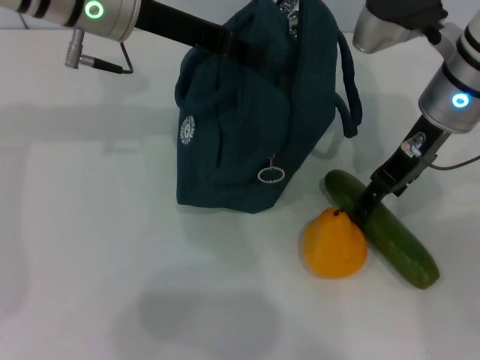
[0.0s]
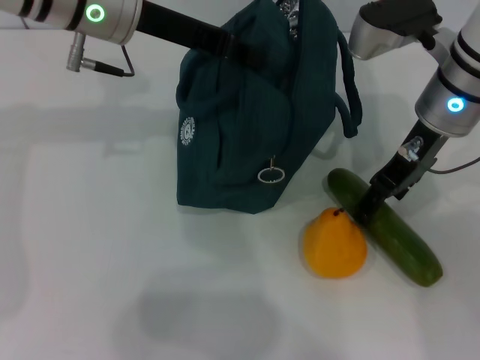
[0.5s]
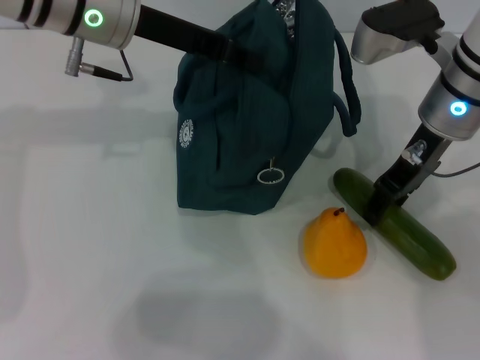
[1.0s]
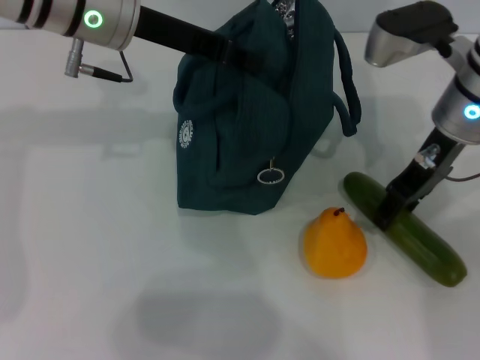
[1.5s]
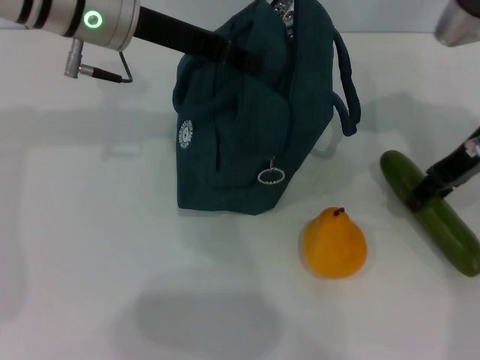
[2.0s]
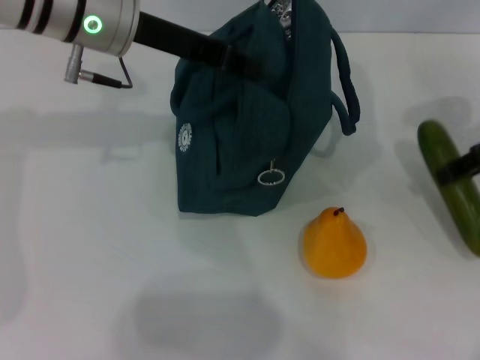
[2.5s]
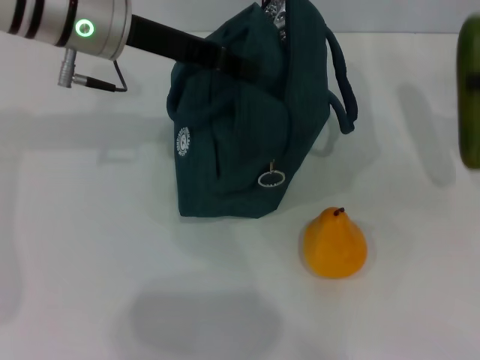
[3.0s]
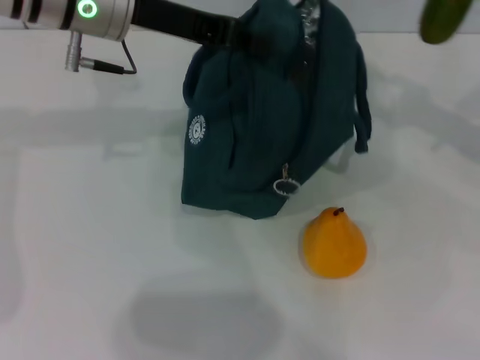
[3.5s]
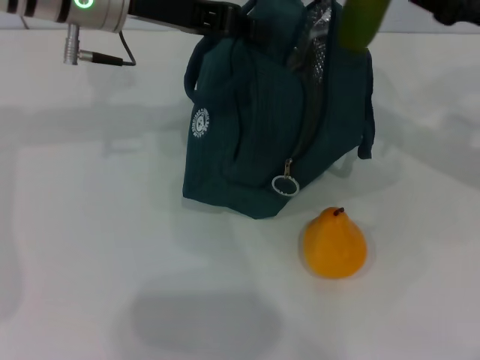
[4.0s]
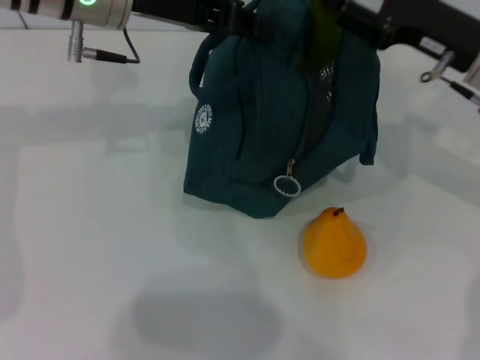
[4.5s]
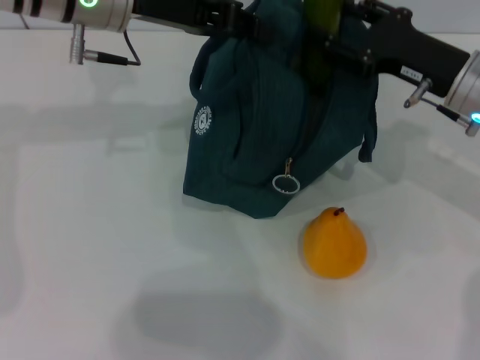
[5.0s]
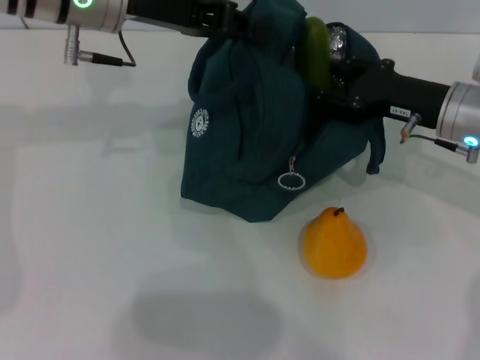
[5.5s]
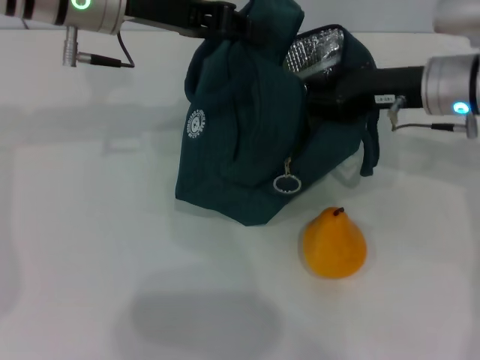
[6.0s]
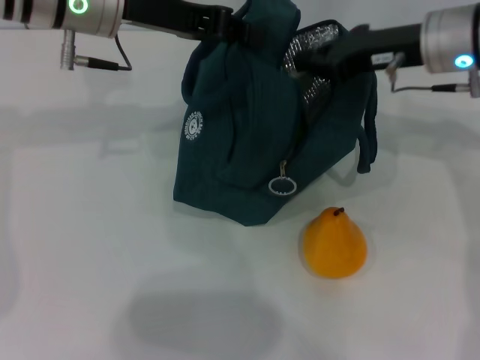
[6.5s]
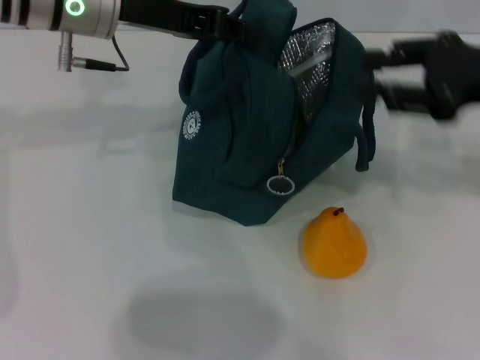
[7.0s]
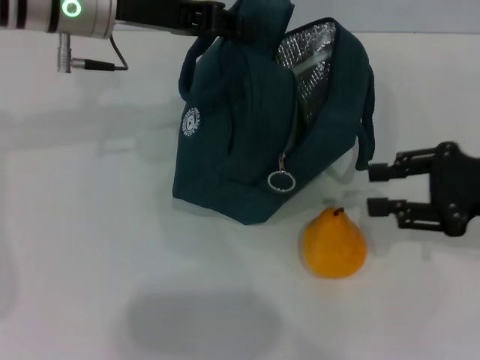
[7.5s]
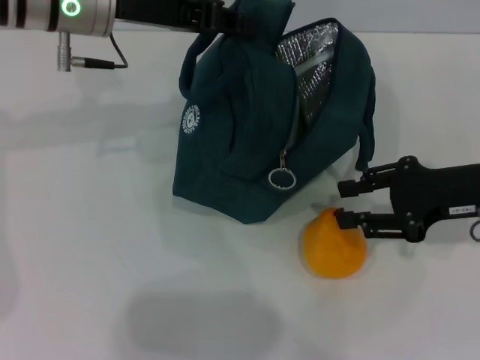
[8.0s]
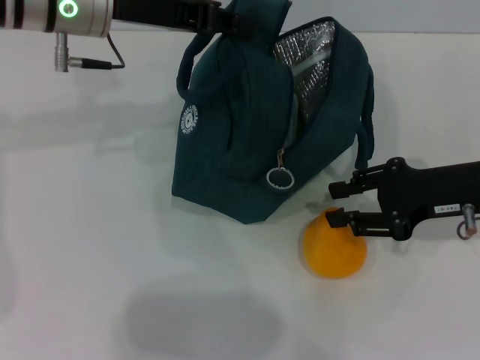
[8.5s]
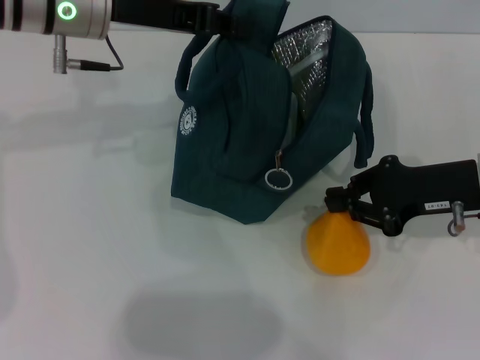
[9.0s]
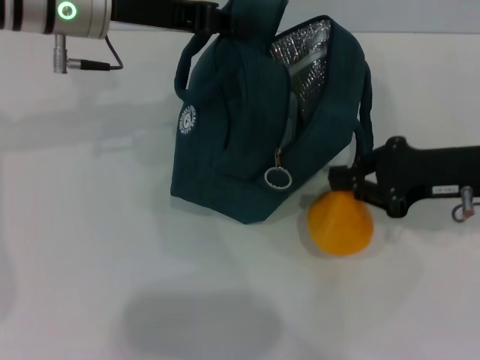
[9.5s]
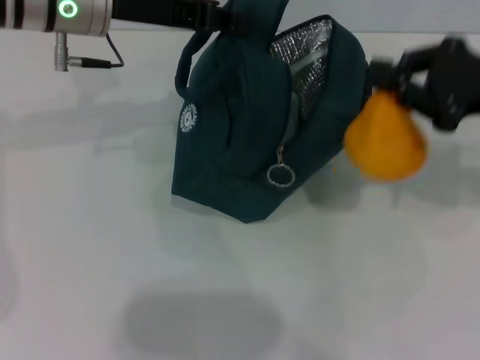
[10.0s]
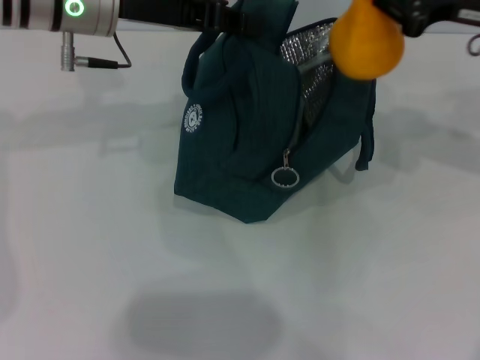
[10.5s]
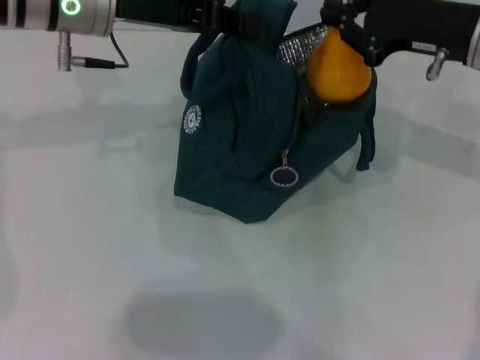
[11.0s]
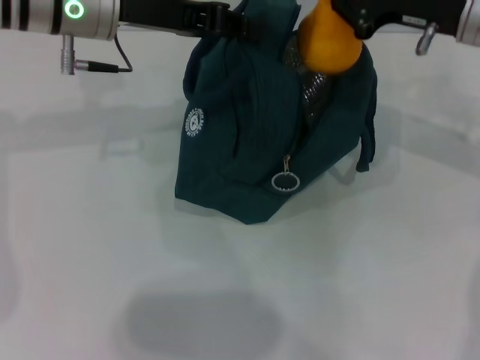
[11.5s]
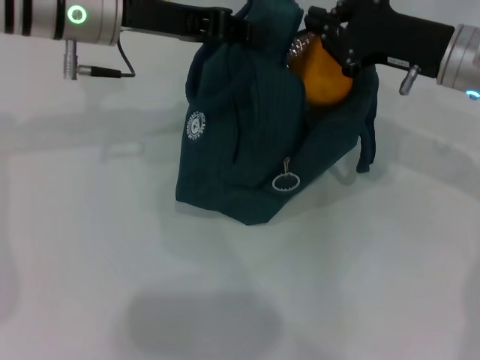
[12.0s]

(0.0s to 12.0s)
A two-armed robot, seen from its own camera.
Step, 1.5s - 6.0s: Put the cucumber into the lunch bag with your right hand.
Step, 7.0s - 9.0s: Grab the pear with your right hand.
0.0s - 2.0s: The right gripper shifts roughly 5 cm to the right.
2.0s - 4.0s: The right gripper travels to the right and back again, approximately 10 cm each way.
4.0s - 6.0s: The right gripper is displaced to the left by about 10 cm.
6.0s - 8.0s: The right gripper goes roughly 10 cm backward and to the right, and closes, then reopens.
8.0s - 10.0s: The right gripper moves upward, approximately 5 cm, and closes.
10.0s - 12.0s: The right gripper heads to the left and forward, covering roughly 10 cm.

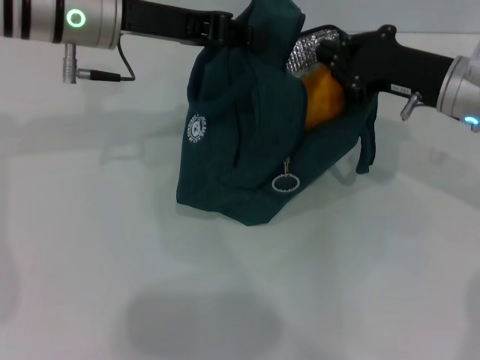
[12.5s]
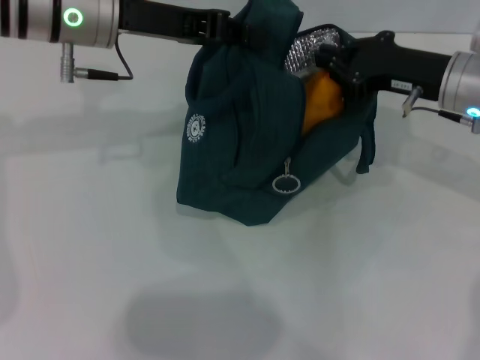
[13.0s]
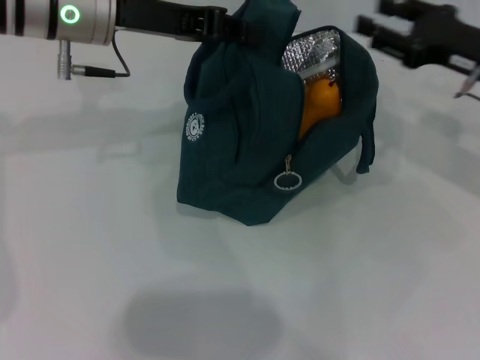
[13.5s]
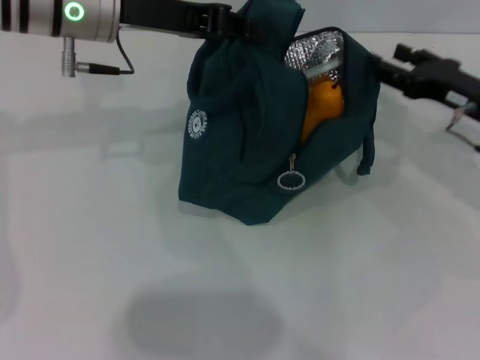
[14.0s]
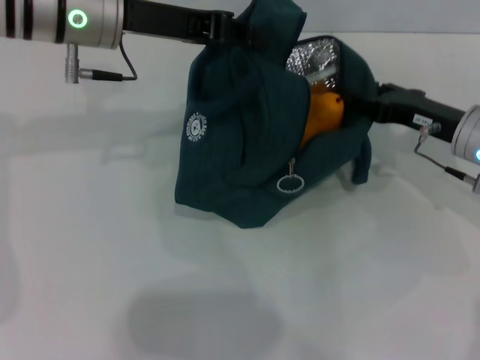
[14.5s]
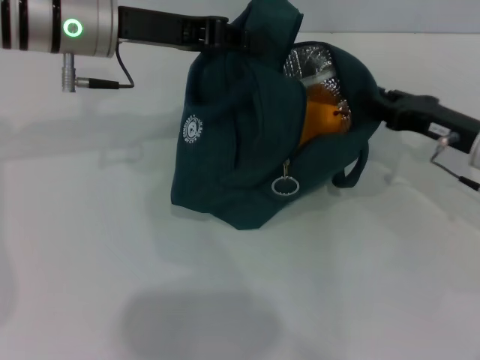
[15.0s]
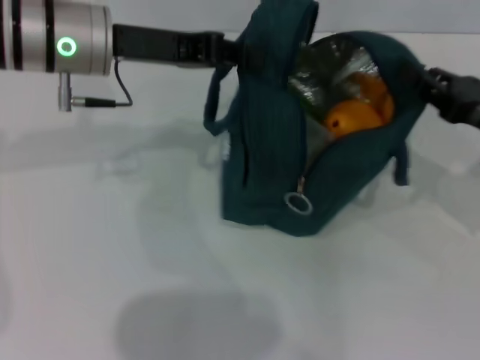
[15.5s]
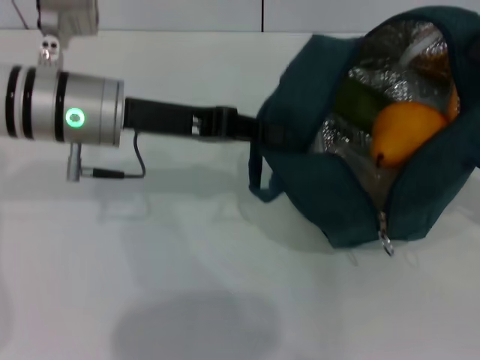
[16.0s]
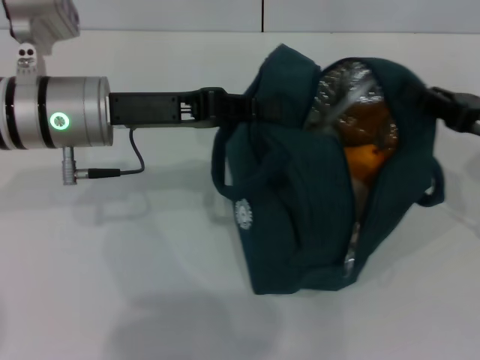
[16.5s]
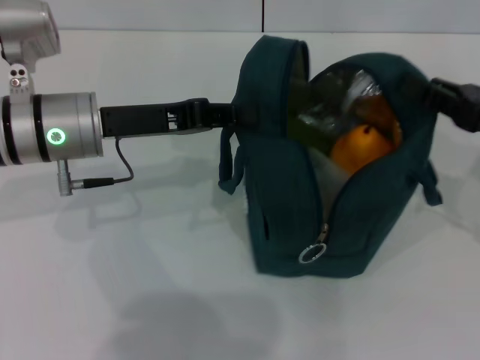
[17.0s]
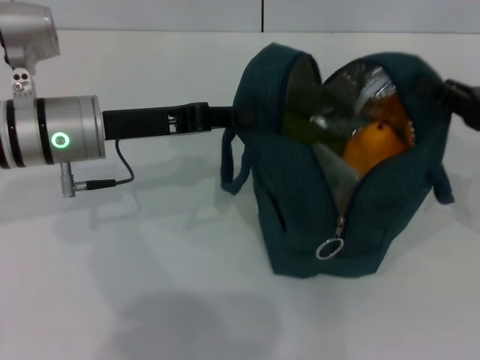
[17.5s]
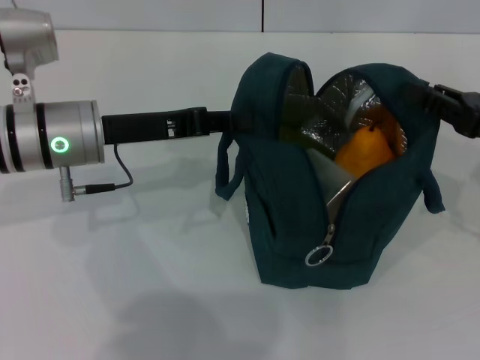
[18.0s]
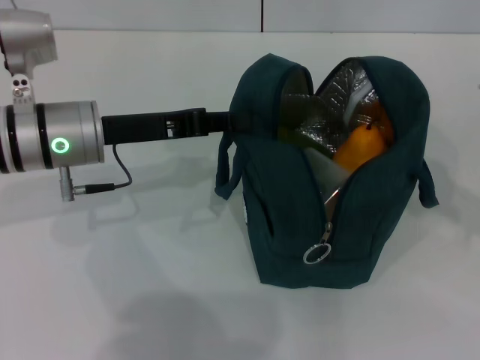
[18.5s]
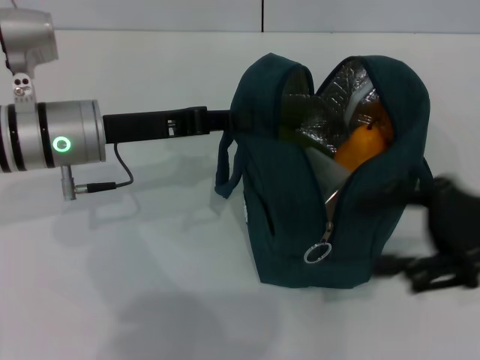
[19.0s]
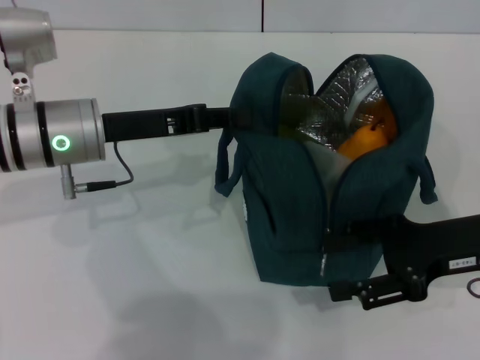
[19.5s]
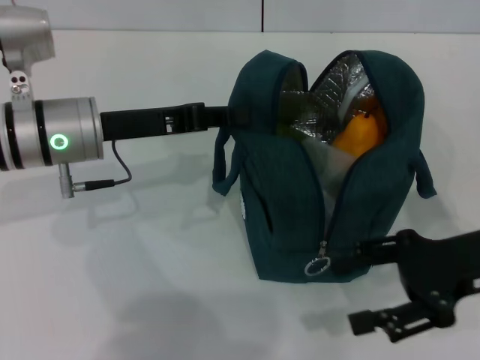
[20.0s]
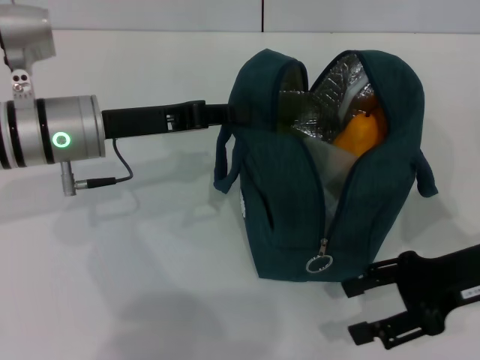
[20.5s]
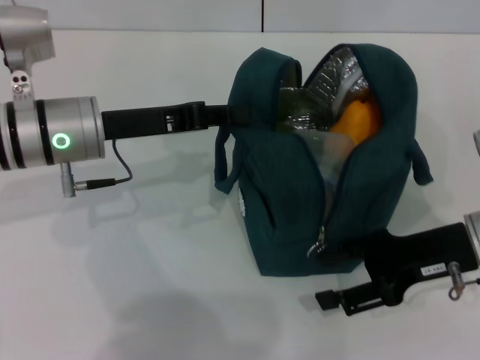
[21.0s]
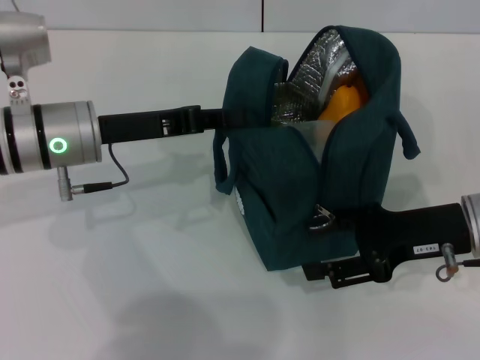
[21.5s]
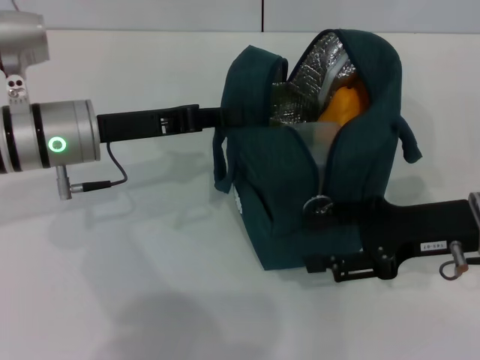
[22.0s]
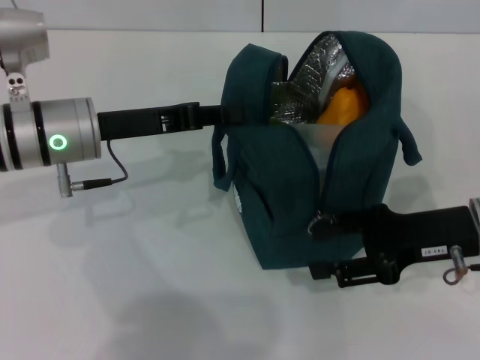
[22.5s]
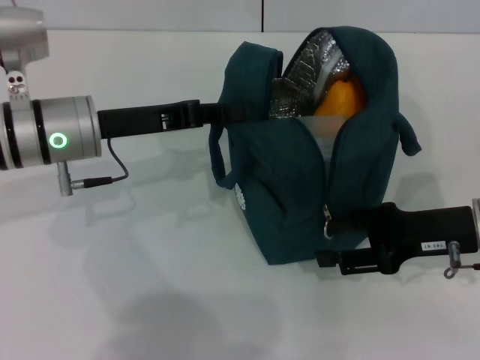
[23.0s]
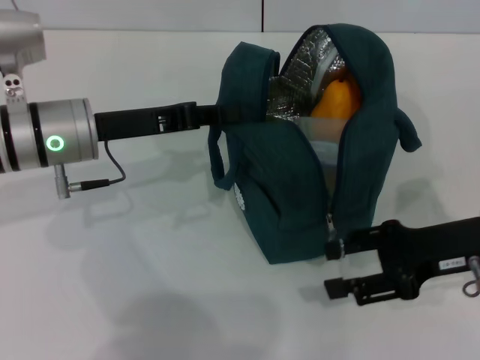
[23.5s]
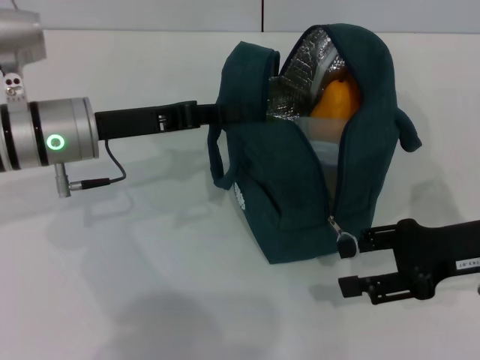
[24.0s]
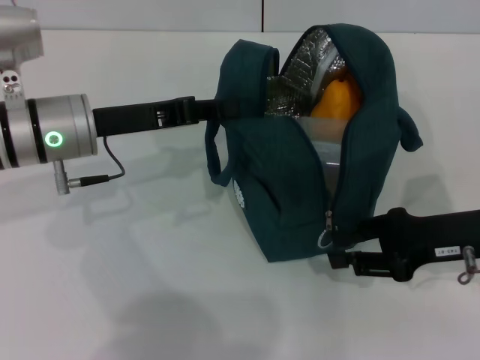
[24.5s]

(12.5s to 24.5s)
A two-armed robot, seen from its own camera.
Step, 13.5s - 18.0s: Hold the lunch bag with your right hand.
12.5s - 14.5s: The right gripper shifts by roughly 5 cm, and opens up.
14.5s - 16.5s: The right gripper shifts roughly 5 cm to the right, and closes up. Meanwhile the left gripper moves backward and downward, approximately 10 cm.
16.5s - 18.5s: The right gripper travels backward by about 5 cm, and opens up.
18.5s - 20.5s: The right gripper goes roughly 10 cm to the left.
22.5s - 24.5s: The grippers make only small movements.

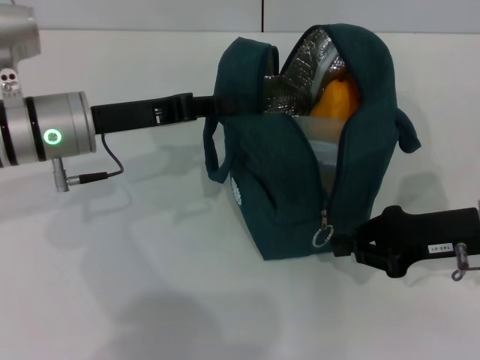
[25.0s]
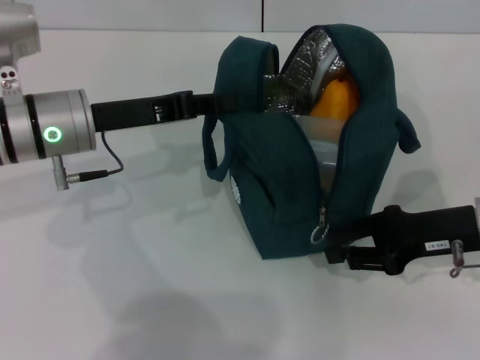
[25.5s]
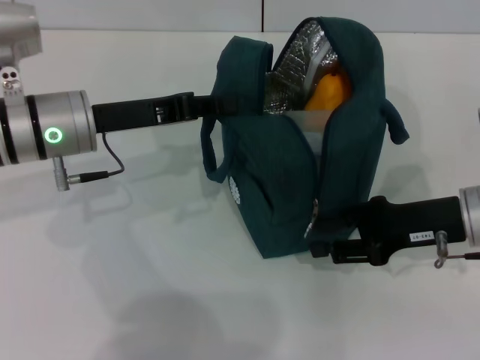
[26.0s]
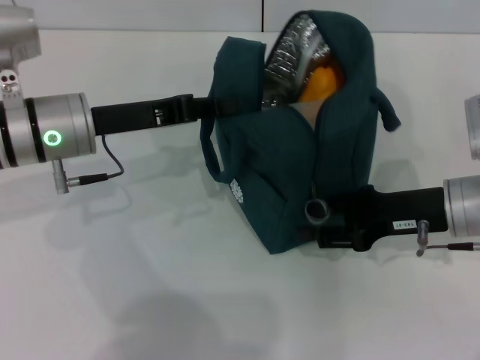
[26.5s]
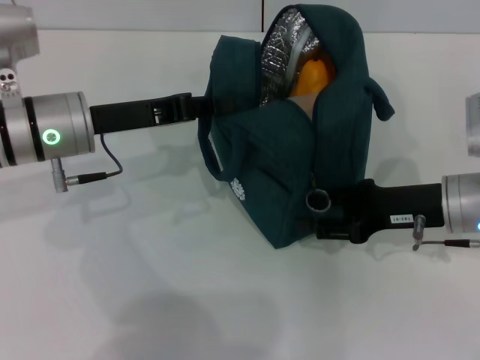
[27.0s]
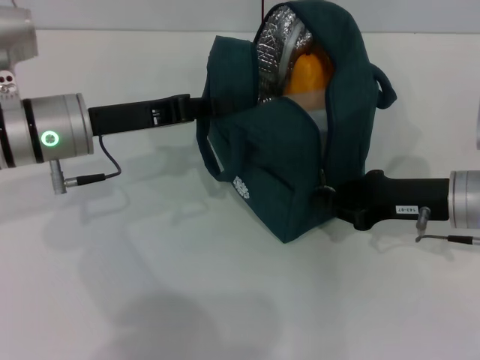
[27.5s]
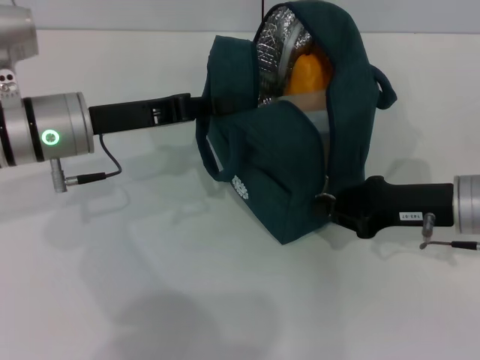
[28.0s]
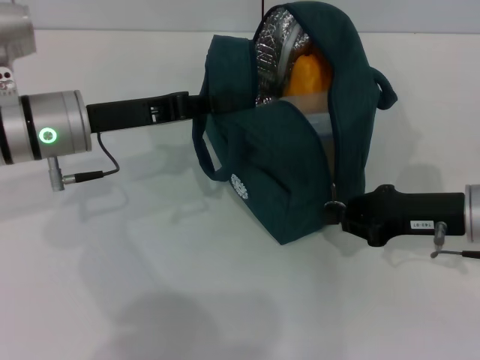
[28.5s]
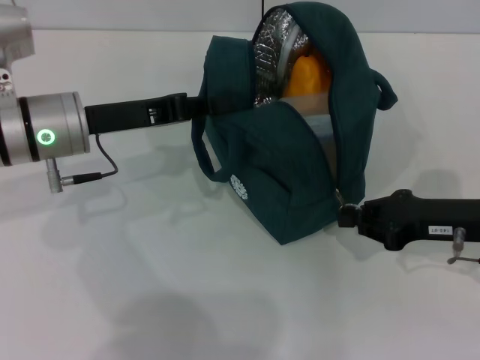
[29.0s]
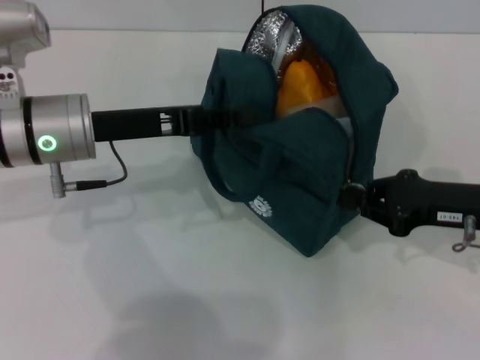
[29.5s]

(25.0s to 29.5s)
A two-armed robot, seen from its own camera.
25.0s - 27.0s: The grippers make only small movements.
27.0s - 29.5s: The right gripper closes up.
